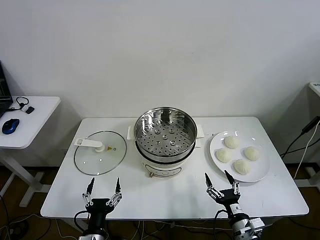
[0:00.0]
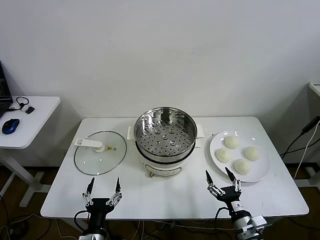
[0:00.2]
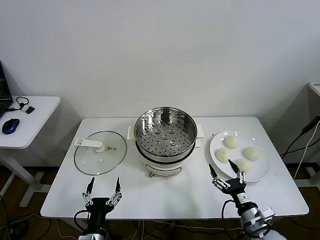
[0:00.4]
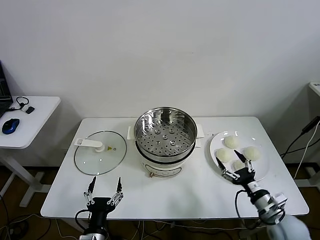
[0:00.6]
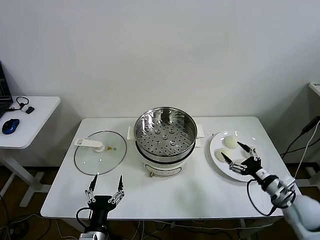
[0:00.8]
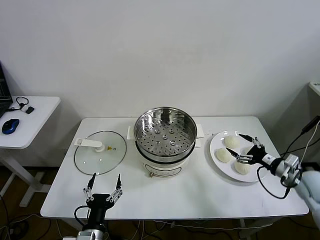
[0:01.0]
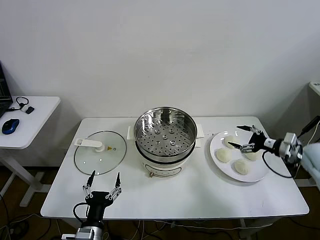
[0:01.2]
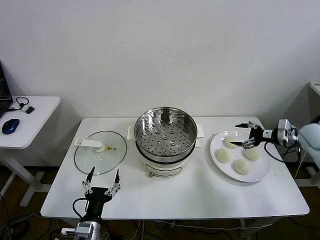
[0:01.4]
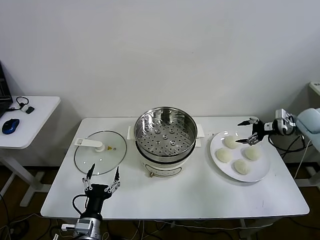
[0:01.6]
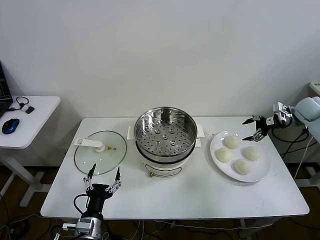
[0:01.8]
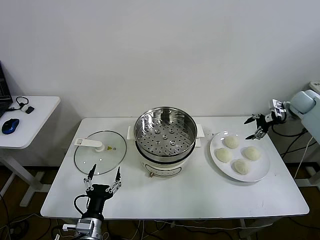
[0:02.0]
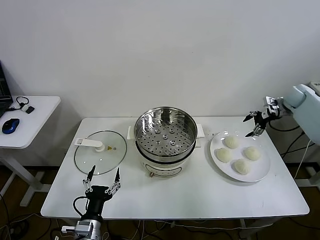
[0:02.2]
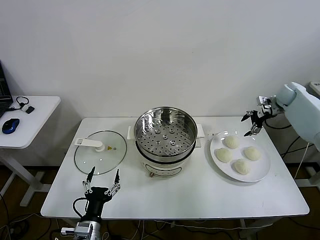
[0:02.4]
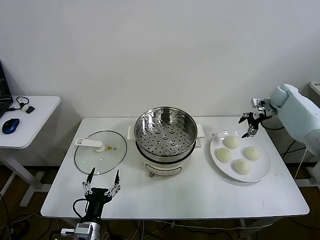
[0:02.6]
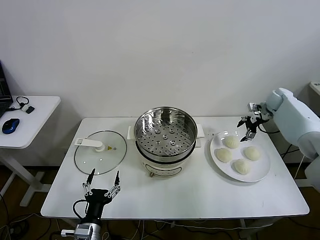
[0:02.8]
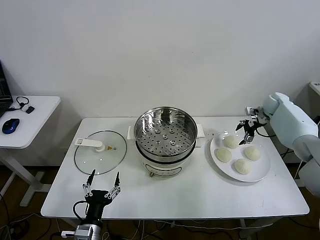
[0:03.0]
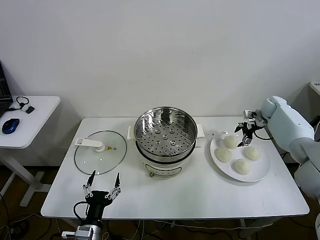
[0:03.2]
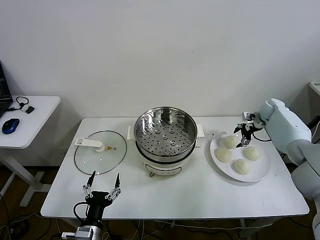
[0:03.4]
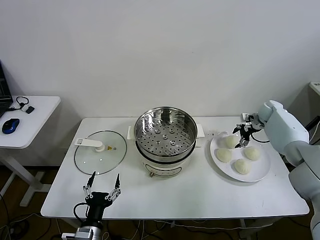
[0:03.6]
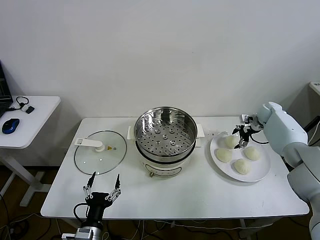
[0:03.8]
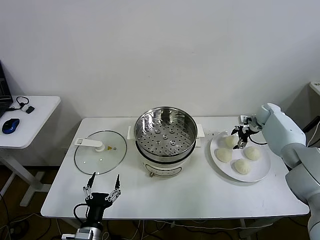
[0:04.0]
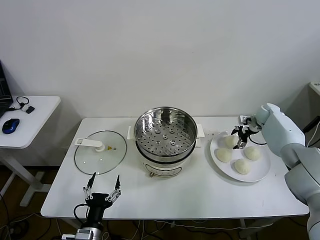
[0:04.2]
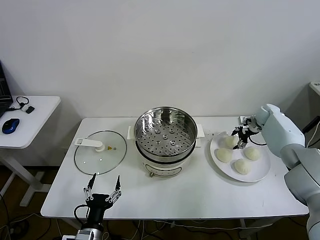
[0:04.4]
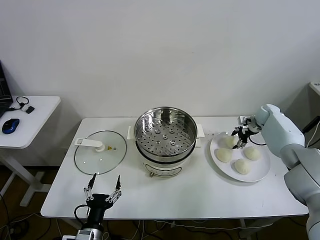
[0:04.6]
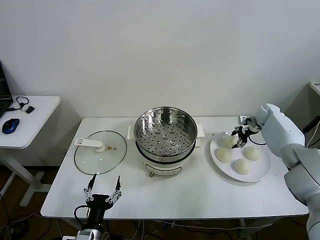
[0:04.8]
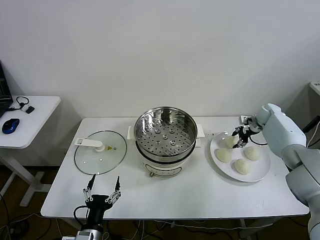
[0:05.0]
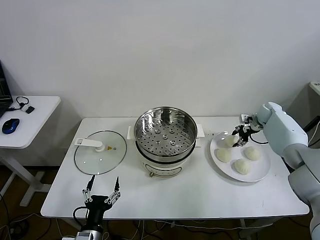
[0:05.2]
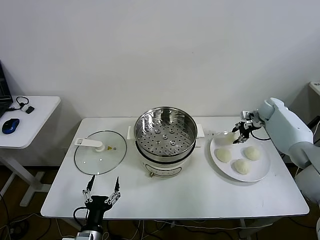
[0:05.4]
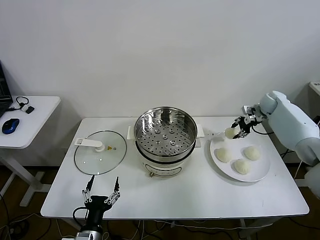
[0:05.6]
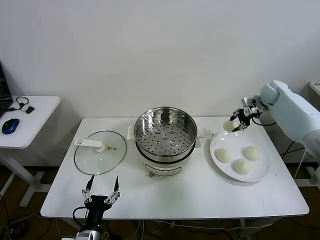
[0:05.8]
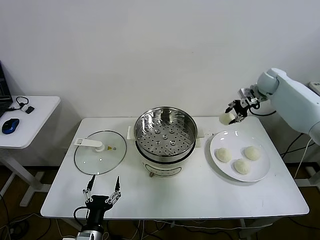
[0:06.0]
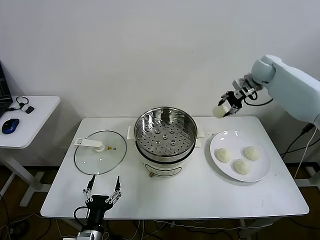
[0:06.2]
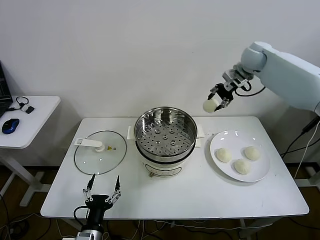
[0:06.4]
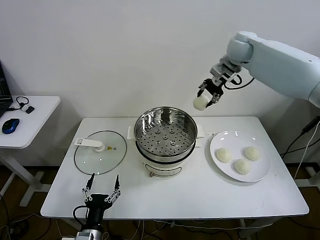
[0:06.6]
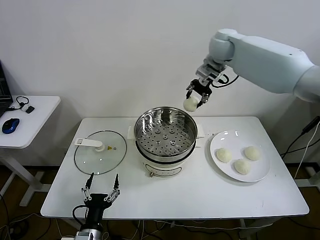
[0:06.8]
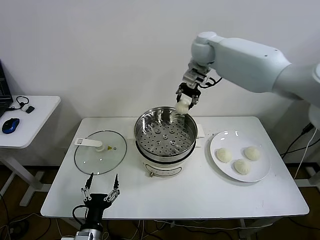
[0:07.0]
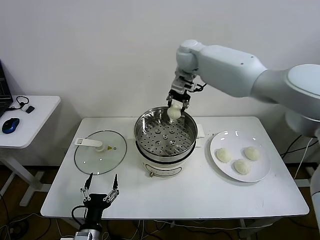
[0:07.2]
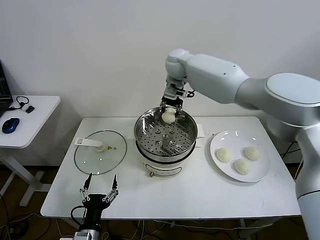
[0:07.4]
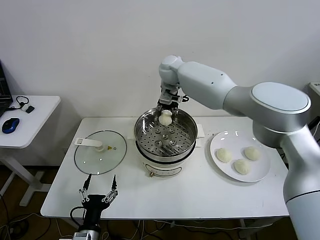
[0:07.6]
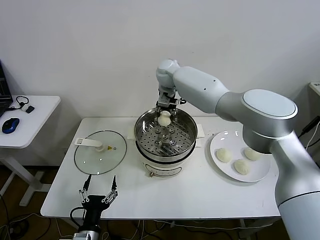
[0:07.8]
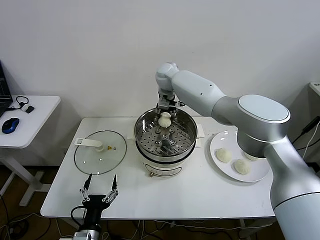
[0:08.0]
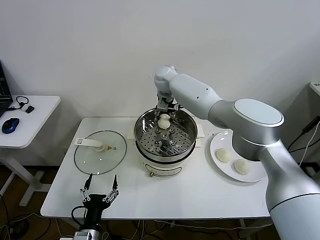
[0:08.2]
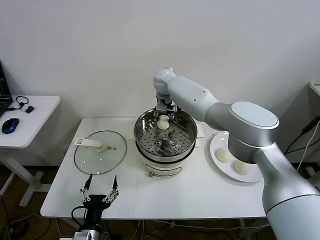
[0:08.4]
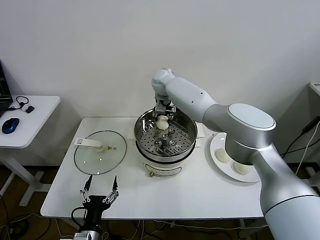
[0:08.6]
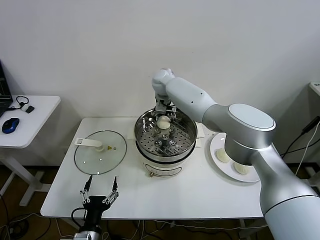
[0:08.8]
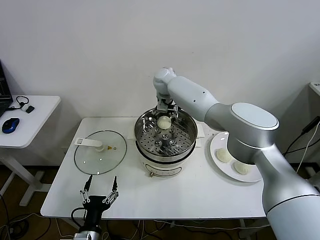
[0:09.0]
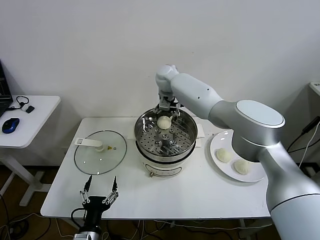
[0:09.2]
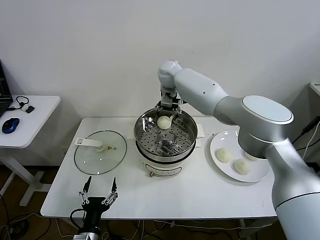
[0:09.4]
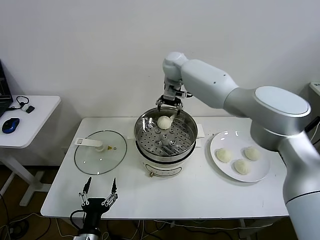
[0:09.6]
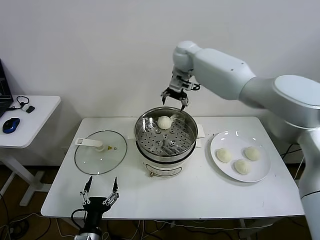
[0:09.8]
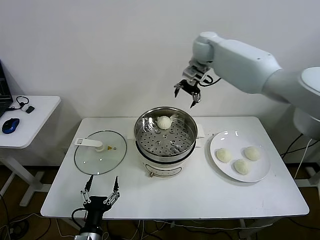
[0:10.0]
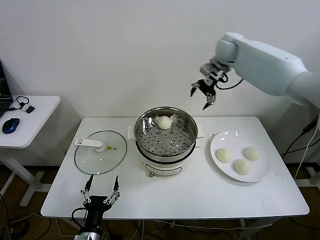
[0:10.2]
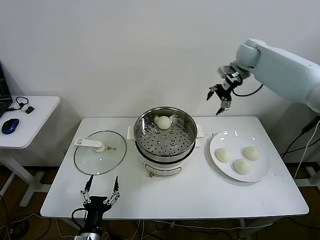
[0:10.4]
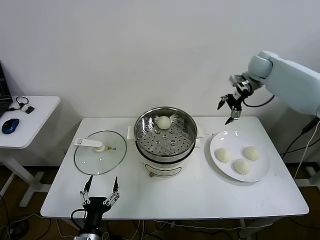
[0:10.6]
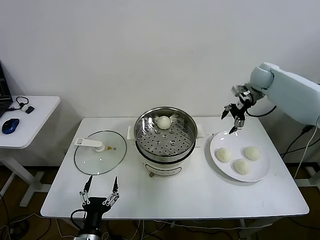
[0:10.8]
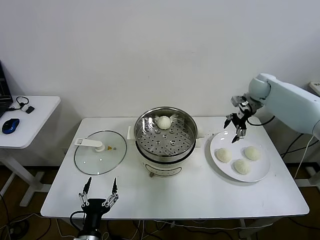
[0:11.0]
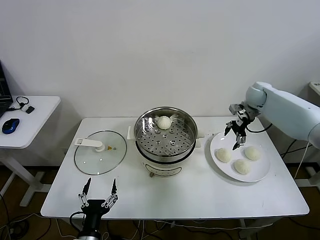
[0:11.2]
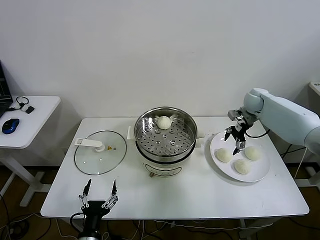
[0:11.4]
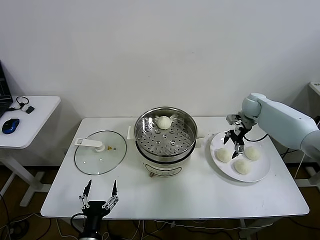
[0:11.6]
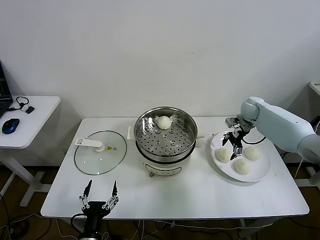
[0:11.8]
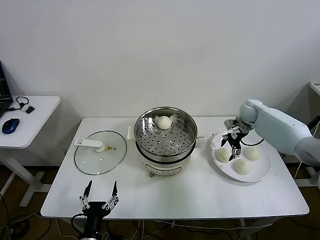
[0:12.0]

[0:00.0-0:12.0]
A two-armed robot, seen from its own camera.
Step, 0:00.0 to 0:05.0: Grasp the baozi in the plate with right gripper.
Step, 0:05.2 to 0:09.2: Place the baozi on the steamer with right gripper.
0:01.6 to 0:03.0: The right gripper moves forward, to the left and downward, approximately 15 cm.
0:03.0 to 0:04.4: There are only small adjustments of the grippers.
0:04.4 to 0:06.0: The right gripper heads upward, covering approximately 20 cm, and closes its fingers.
0:06.0 to 0:07.6: The right gripper travels to the left by approximately 35 cm.
0:07.6 to 0:09.0: The right gripper opens.
0:09.0 to 0:10.4: The right gripper shifts about 30 cm to the right.
0:10.4 to 0:12.0: The right gripper shifts some 20 cm downward.

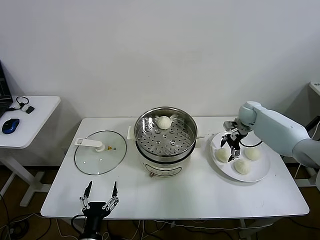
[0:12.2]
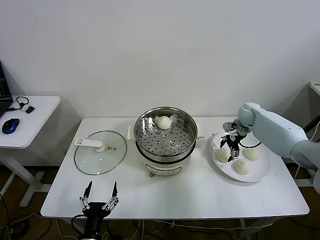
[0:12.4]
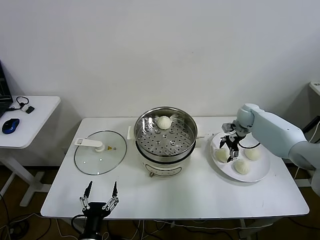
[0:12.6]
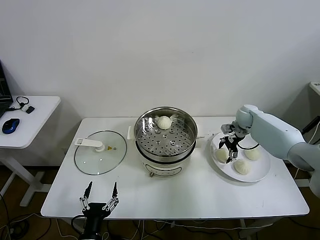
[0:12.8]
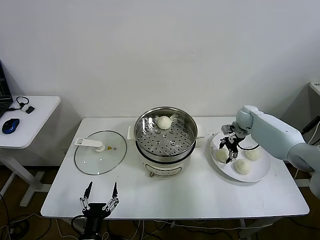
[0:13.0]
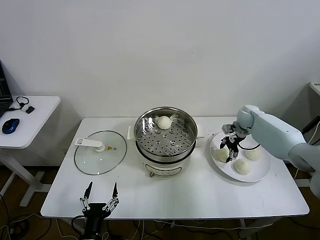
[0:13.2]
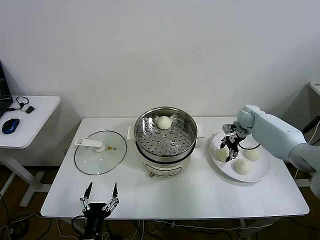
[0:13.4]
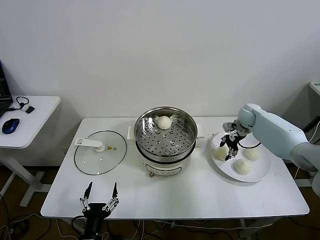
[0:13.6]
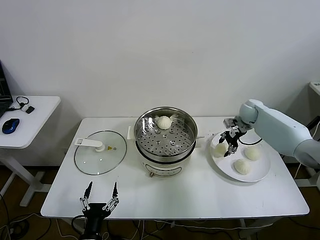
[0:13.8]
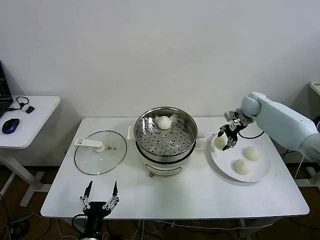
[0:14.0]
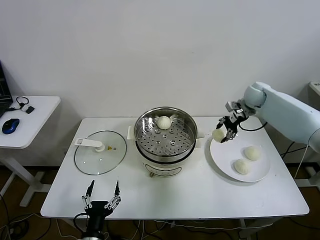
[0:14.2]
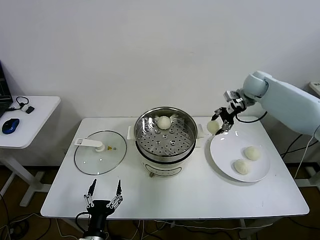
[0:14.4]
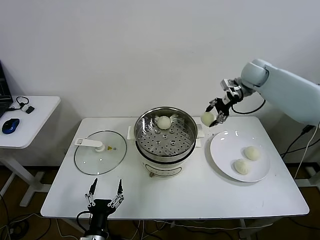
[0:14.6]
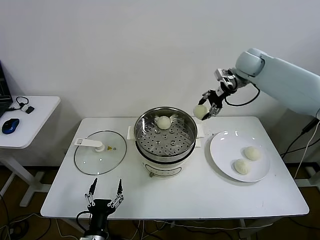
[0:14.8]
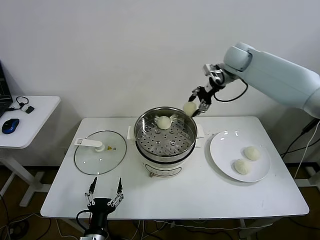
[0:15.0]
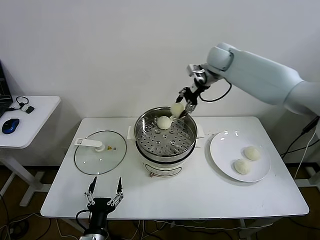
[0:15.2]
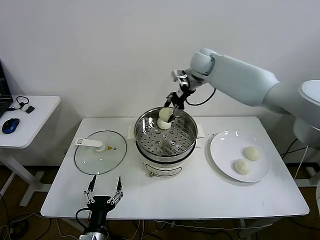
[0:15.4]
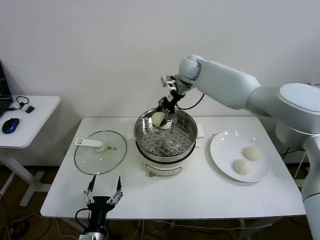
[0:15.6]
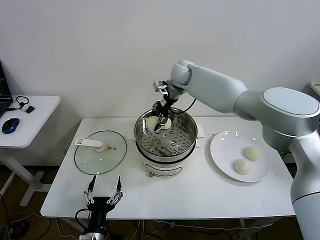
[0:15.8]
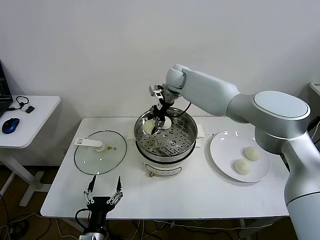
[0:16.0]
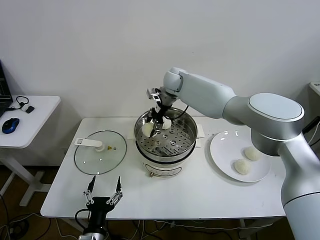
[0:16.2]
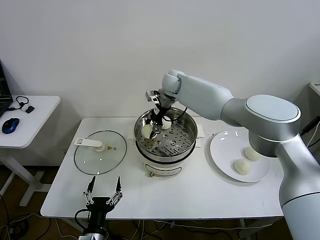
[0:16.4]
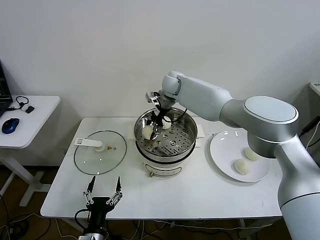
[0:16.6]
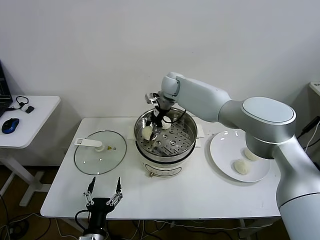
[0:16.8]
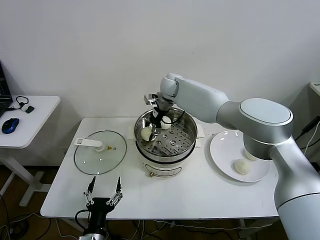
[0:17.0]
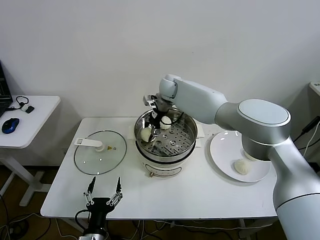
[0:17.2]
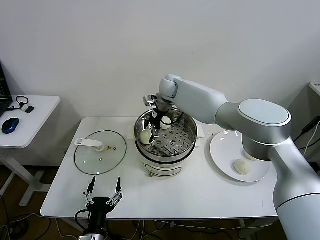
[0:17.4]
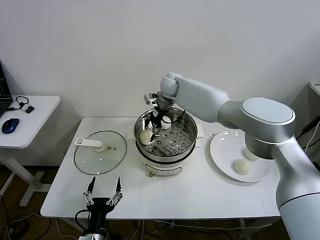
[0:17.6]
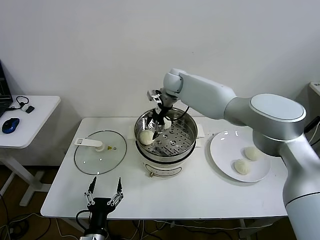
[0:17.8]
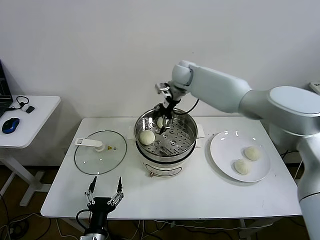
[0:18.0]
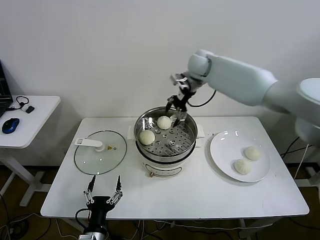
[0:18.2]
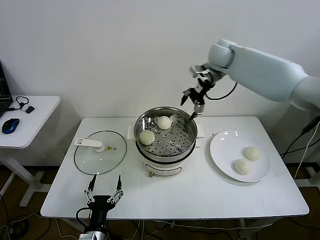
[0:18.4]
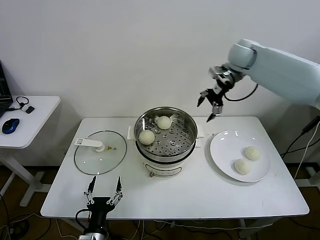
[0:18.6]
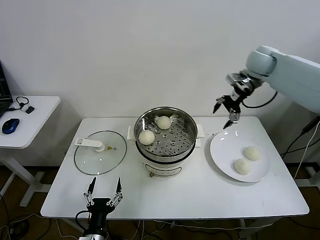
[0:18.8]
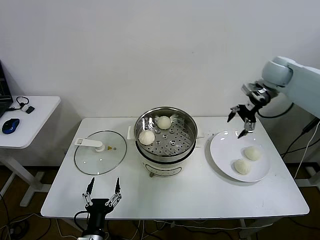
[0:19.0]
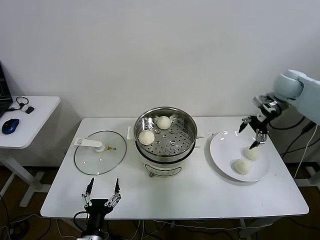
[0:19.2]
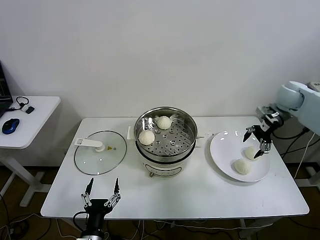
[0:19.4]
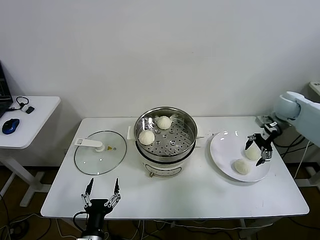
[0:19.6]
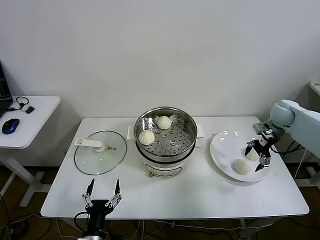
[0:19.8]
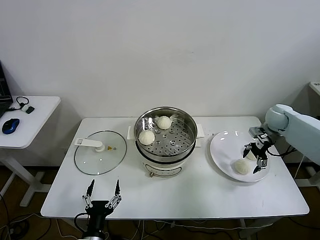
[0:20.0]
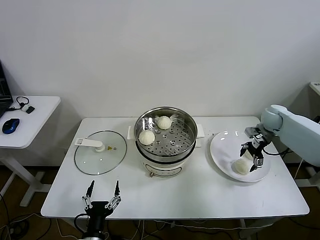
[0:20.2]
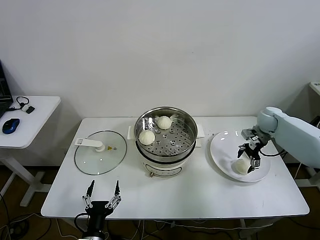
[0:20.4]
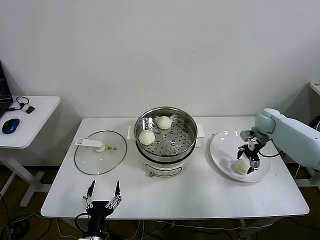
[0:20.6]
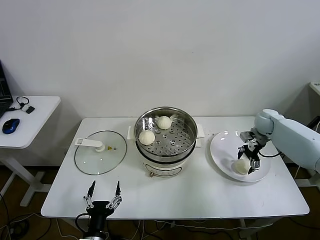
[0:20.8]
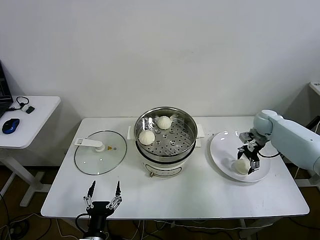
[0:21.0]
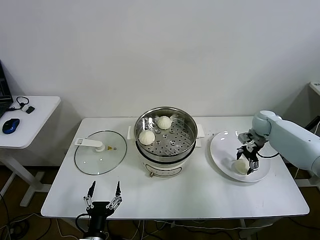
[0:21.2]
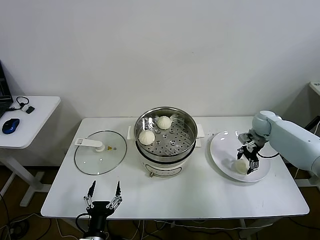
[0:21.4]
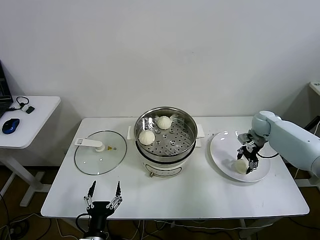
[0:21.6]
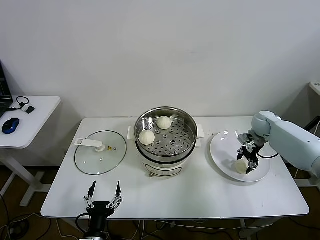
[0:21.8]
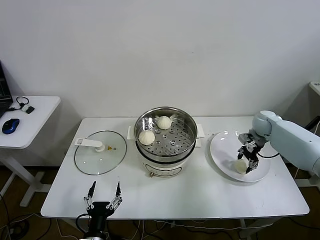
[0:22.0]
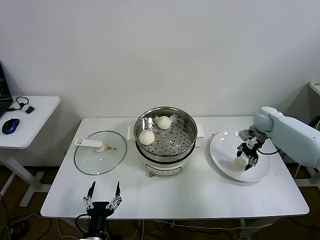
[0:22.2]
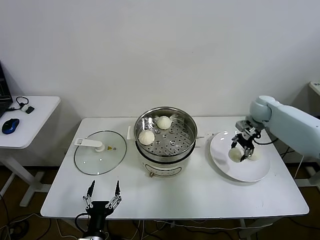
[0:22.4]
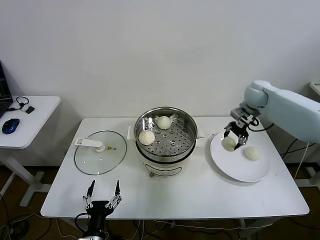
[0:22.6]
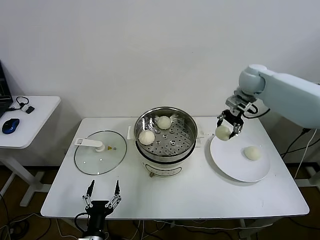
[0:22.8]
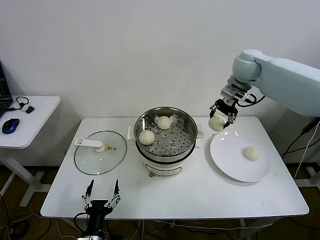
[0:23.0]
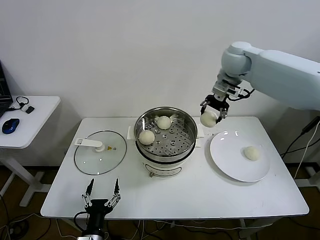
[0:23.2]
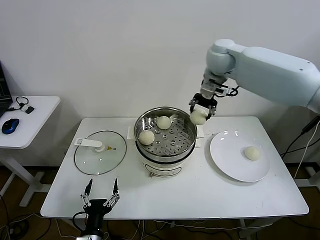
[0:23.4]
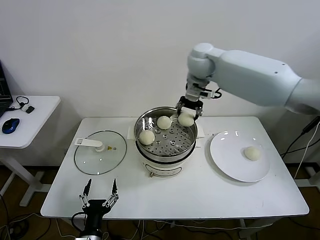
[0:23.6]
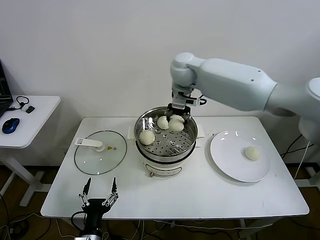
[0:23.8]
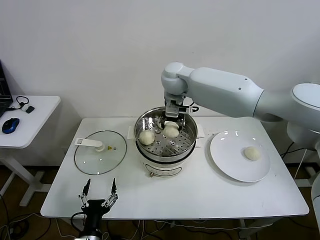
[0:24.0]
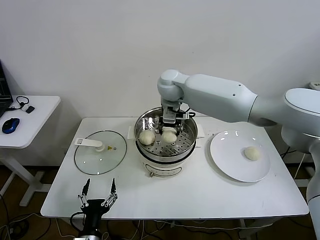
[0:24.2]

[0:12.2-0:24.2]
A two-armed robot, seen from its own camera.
Step, 0:13.6 to 0:17.6: Place the baozi on the steamer with right gripper.
Step, 0:17.8 to 0:21.8: Grasp the baozi in the plate with right gripper.
0:12.2 to 0:13.8: The right gripper closes its fingers.
0:13.8 to 0:15.2: The right gripper is displaced upward and to the left by about 25 cm.
0:15.2 to 0:16.6: The right gripper moves to the left and downward, roughly 15 cm.
0:16.6 to 0:18.2: The right gripper travels to the right and upward by roughly 15 cm, and opens.
0:18.2 to 0:19.8: The right gripper is displaced to the right and downward by roughly 35 cm.
0:19.8 to 0:21.2: The right gripper heads downward, covering approximately 5 cm.
0:21.2 to 0:22.6: The right gripper goes about 15 cm upward and to the left, and closes its fingers.
0:22.6 to 0:24.2: The right gripper goes some 30 cm to the left.
